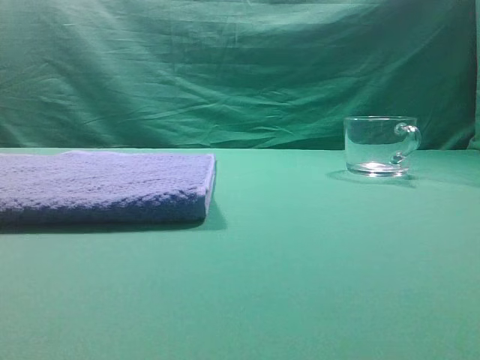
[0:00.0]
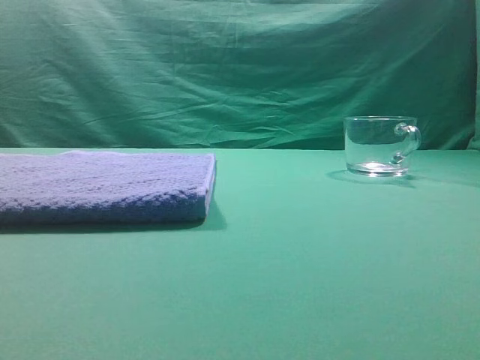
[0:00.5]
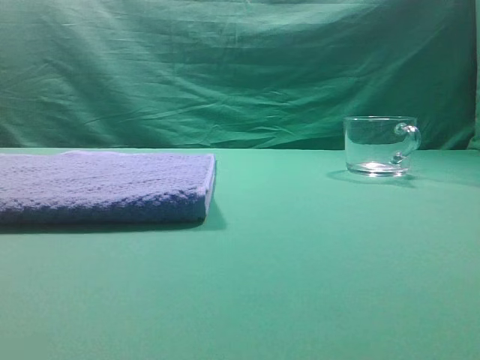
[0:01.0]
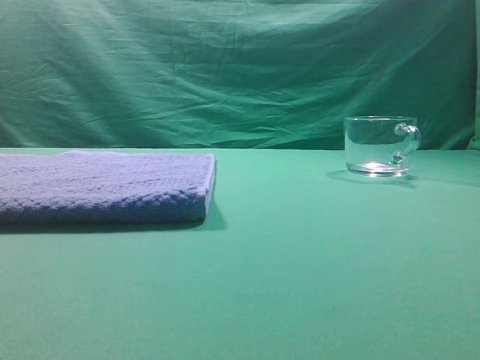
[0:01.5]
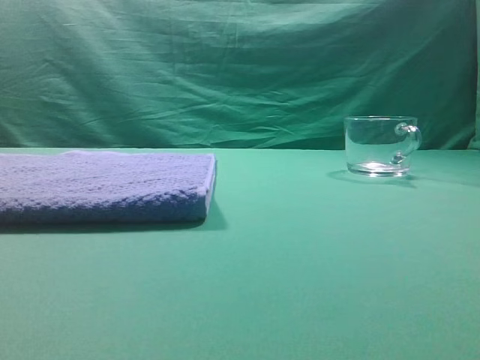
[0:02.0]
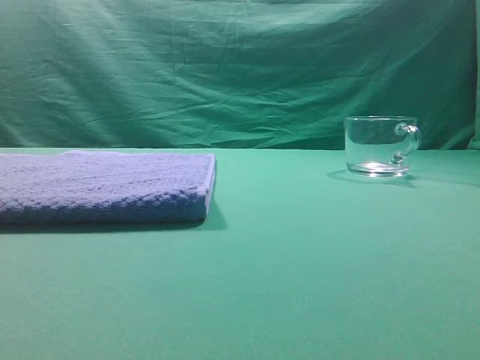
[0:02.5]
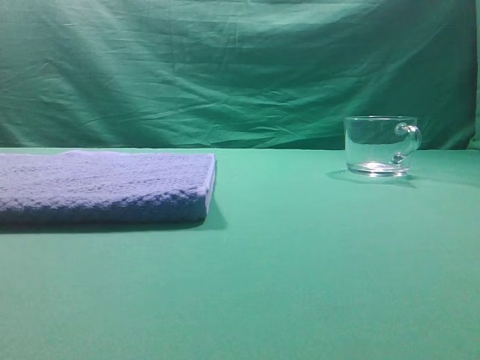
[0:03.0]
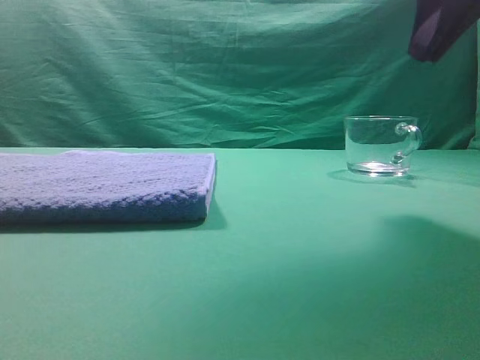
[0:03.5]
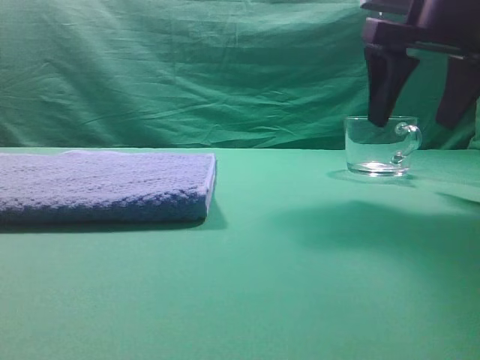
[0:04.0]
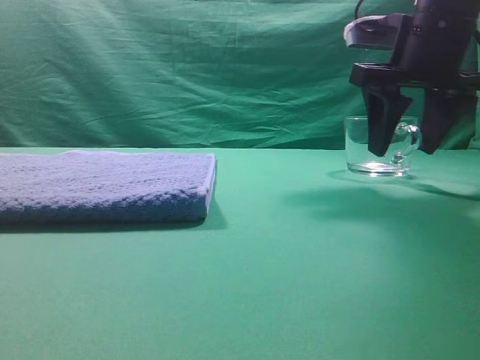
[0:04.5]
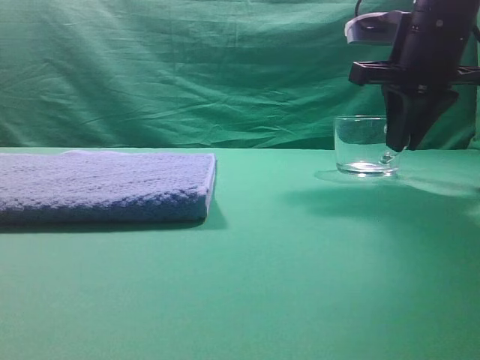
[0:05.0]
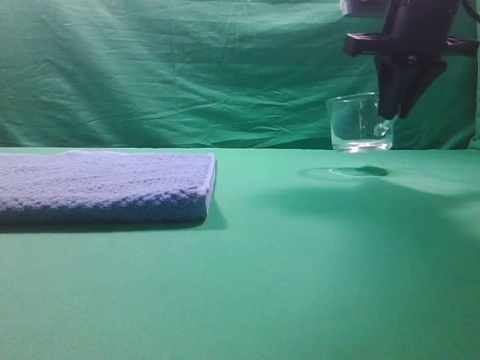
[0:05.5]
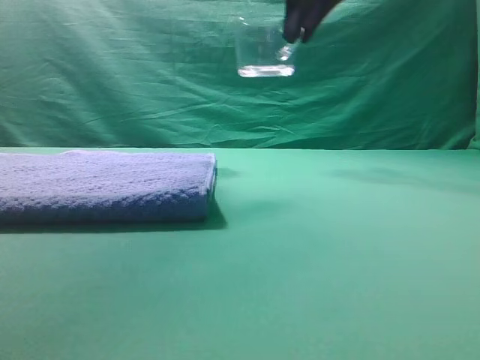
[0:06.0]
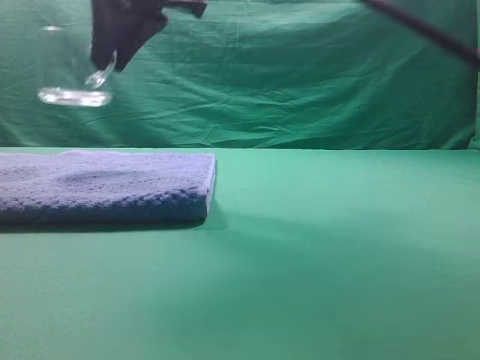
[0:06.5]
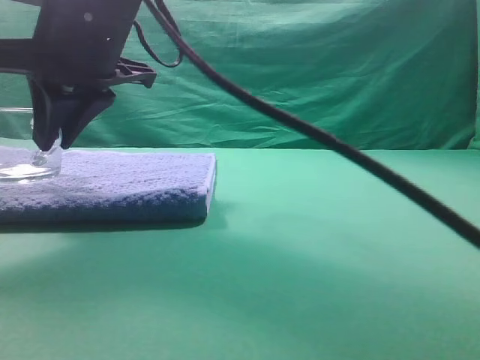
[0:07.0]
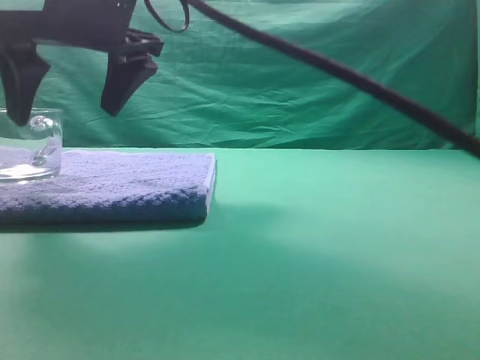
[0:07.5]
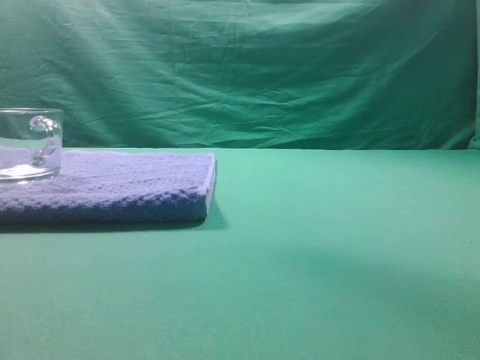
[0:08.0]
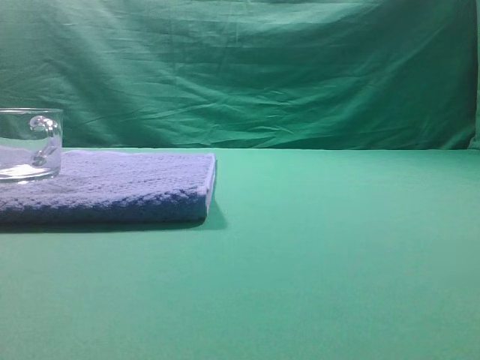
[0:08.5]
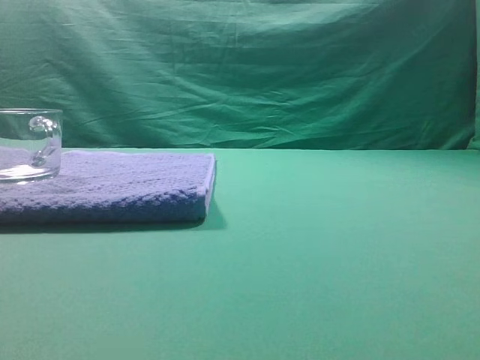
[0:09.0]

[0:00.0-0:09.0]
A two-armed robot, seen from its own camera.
Task of the whole recording: grasp the transparent glass cup and place it within the blue towel.
Step, 0:00.0 to 0:05.5: Grasp the transparent glass cup.
Step, 0:06.0 to 0:07.5: Place the glass cup on the blue zone.
